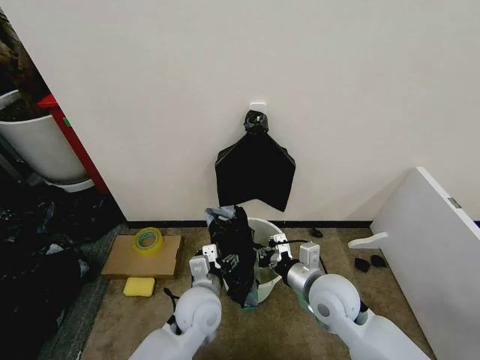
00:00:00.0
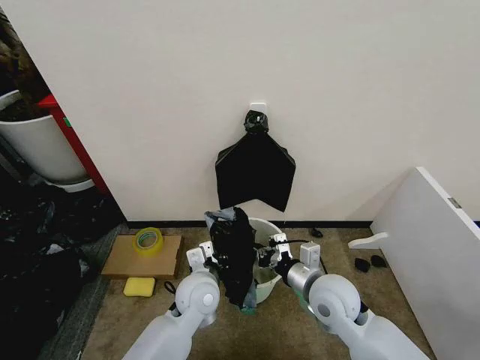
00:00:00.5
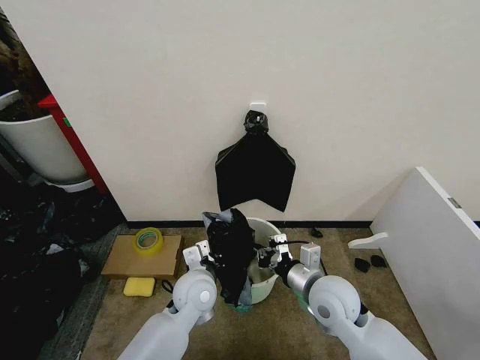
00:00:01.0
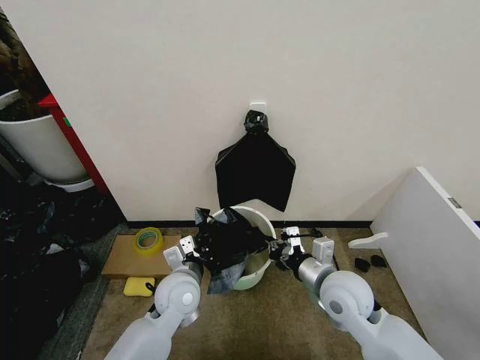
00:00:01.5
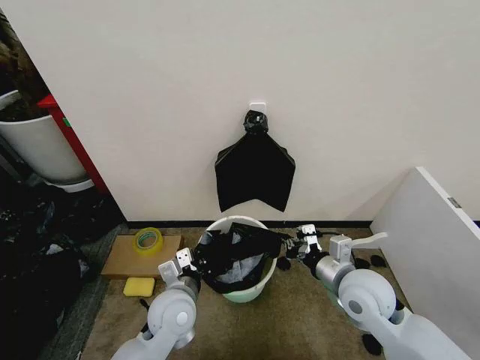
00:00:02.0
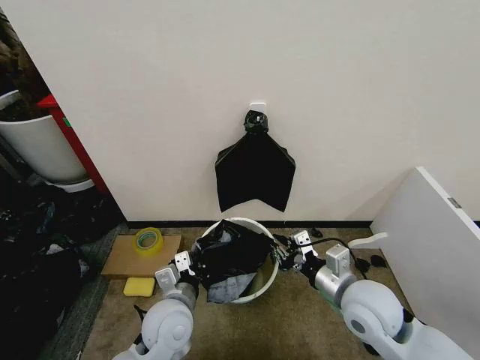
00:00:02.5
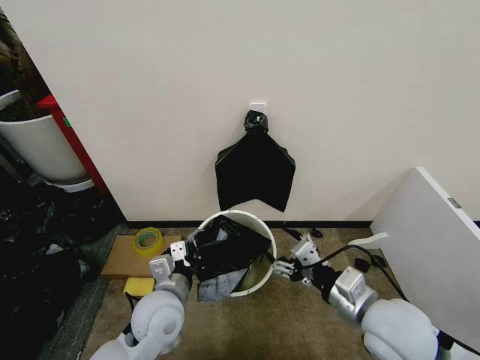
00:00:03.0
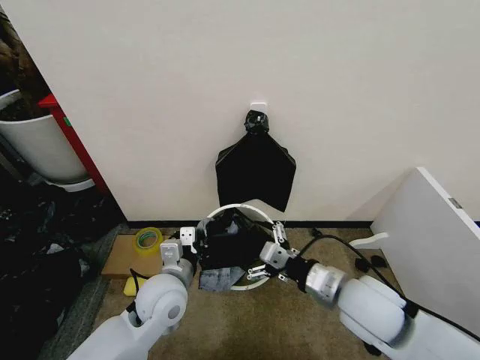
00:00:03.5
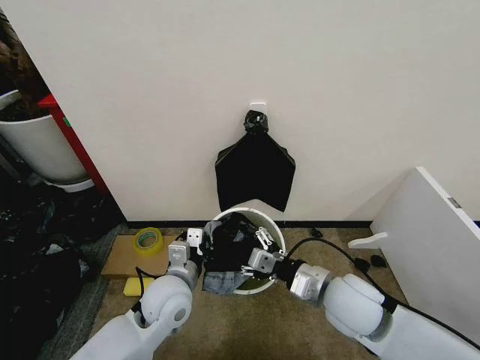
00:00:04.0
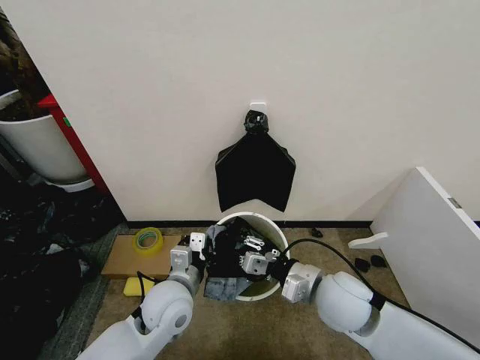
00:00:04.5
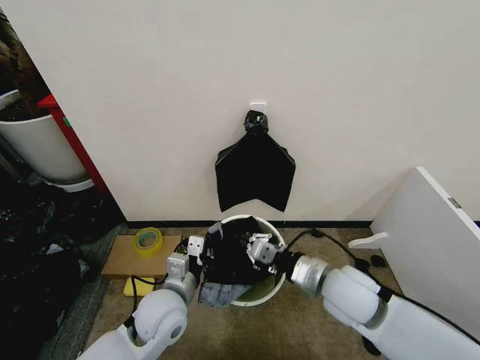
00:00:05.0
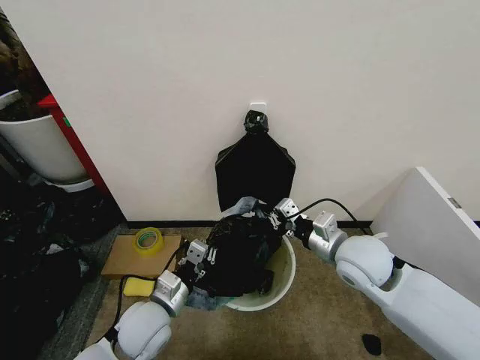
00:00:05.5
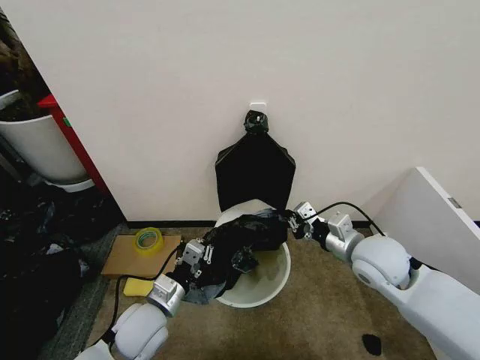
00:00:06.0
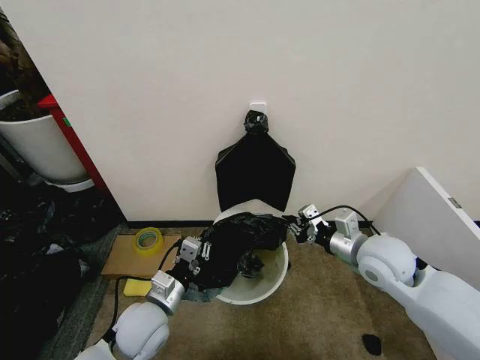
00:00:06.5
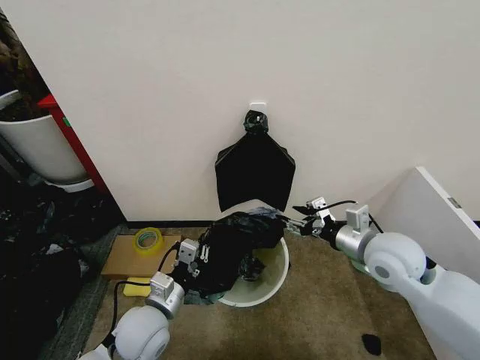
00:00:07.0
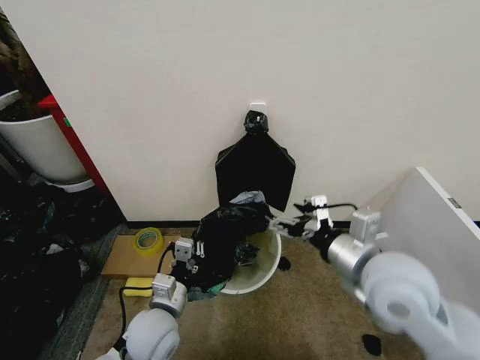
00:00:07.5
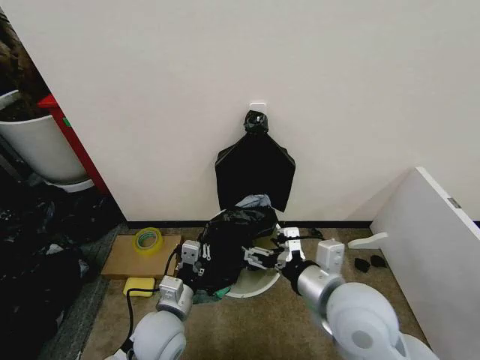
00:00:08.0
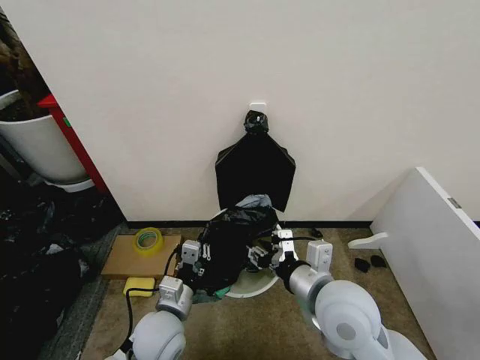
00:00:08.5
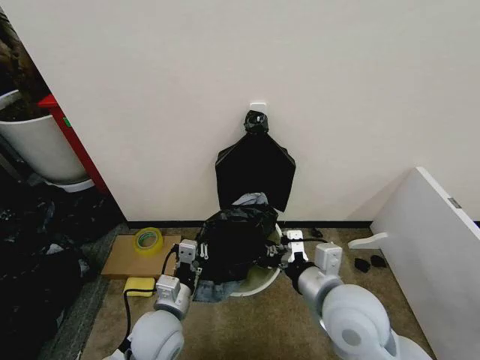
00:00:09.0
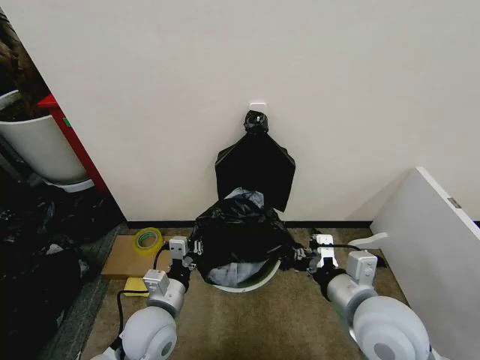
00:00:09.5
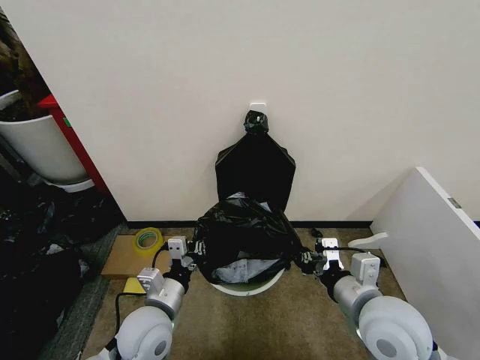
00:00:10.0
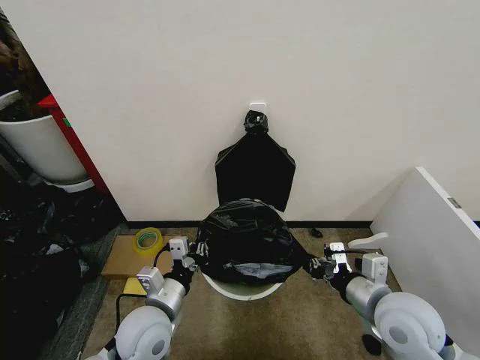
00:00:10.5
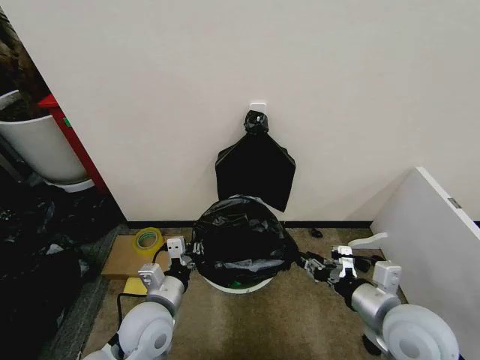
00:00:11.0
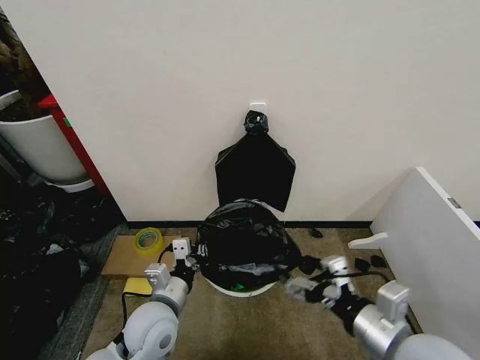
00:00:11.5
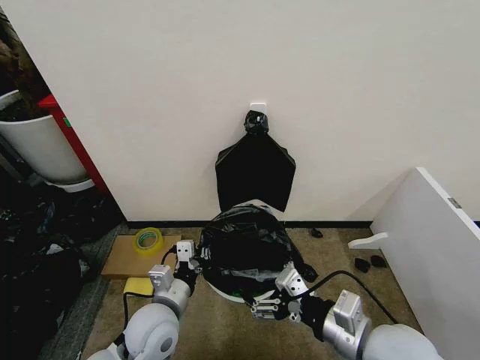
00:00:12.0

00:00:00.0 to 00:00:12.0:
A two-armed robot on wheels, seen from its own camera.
Task of the whole recording: Place the garbage bag over the trash bin.
00:00:00.0 to 00:00:02.0: The left gripper is displaced to the left by some 5 cm, and closes, while the right gripper shifts approximately 5 cm to the right.
00:00:02.0 to 00:00:04.0: The right gripper opens its fingers.
00:00:04.0 to 00:00:06.0: The left gripper moves to the left, roughly 5 cm. Meanwhile the right gripper shifts some 10 cm to the right and forward, and closes its fingers.
00:00:06.0 to 00:00:08.0: The right gripper moves backward and to the left, about 15 cm, and opens up.
00:00:08.0 to 00:00:10.0: The right gripper moves to the right, roughly 5 cm, and closes.
00:00:10.0 to 00:00:12.0: The right gripper opens.

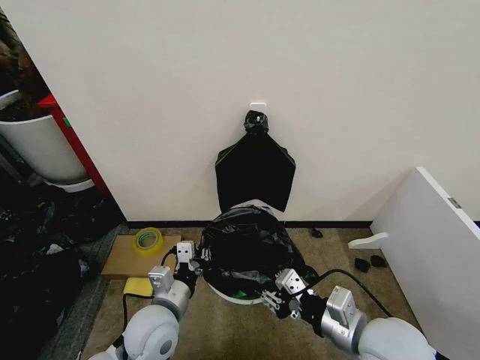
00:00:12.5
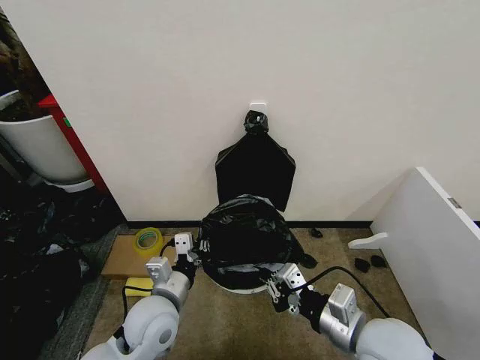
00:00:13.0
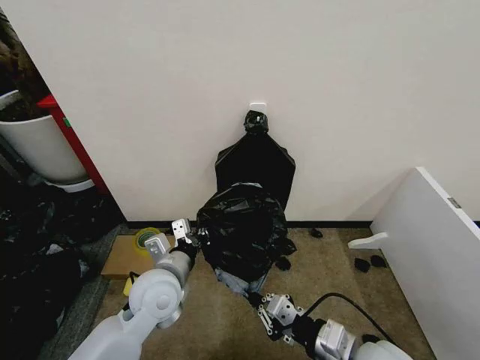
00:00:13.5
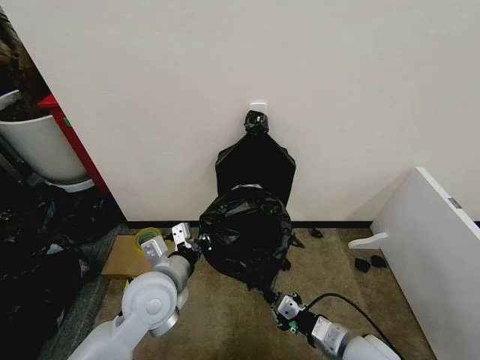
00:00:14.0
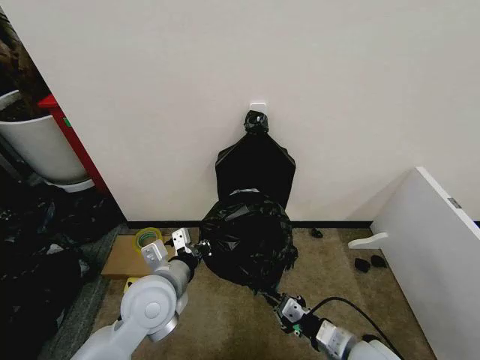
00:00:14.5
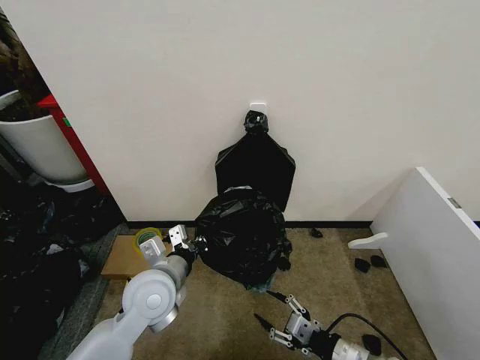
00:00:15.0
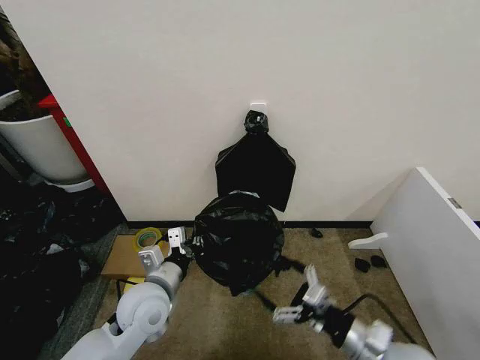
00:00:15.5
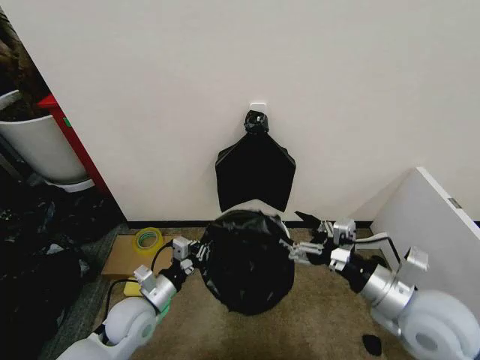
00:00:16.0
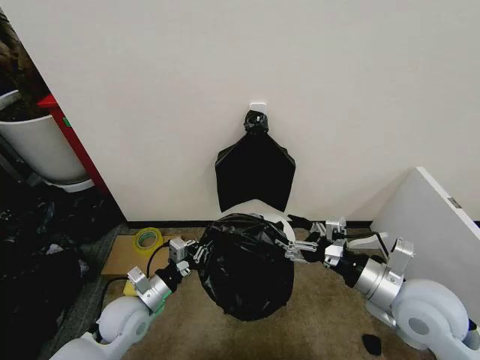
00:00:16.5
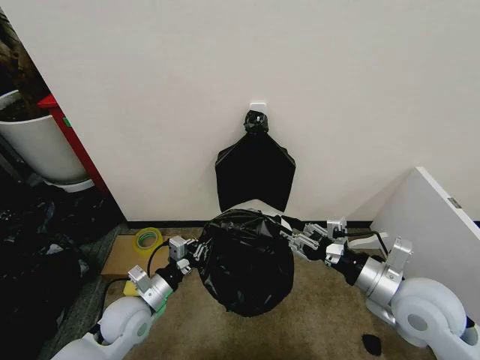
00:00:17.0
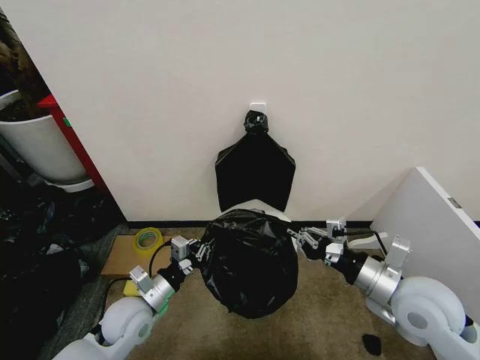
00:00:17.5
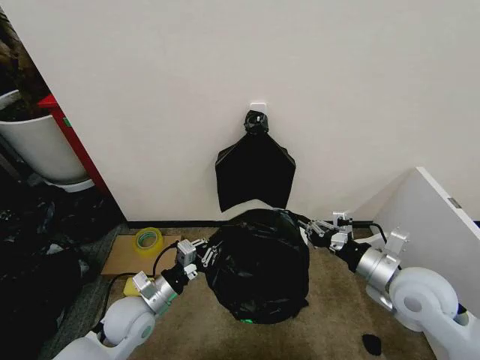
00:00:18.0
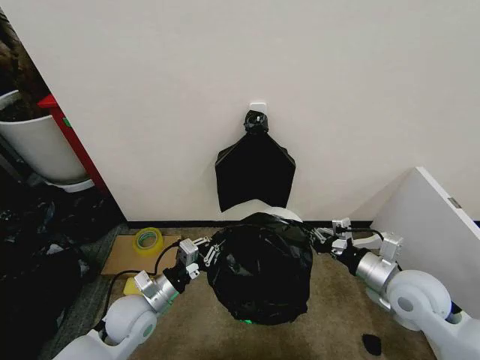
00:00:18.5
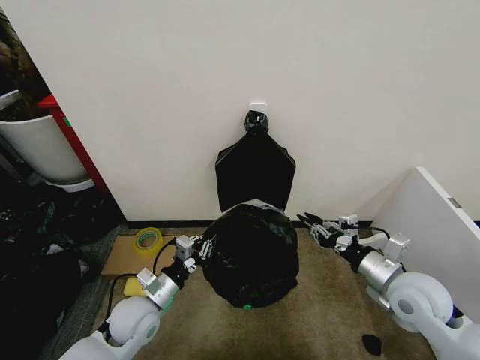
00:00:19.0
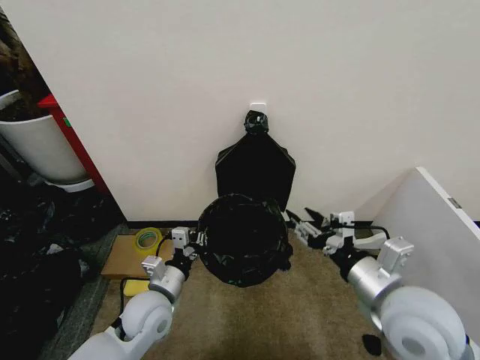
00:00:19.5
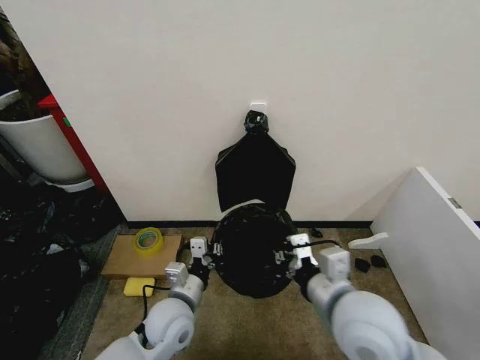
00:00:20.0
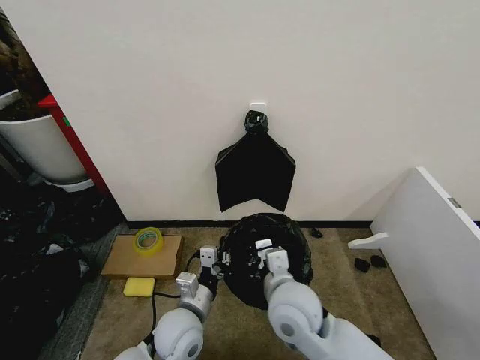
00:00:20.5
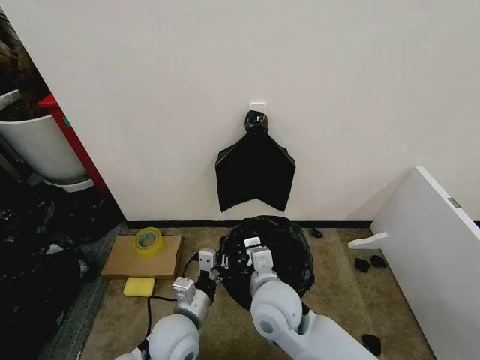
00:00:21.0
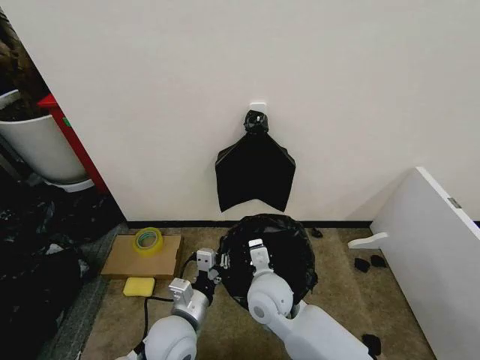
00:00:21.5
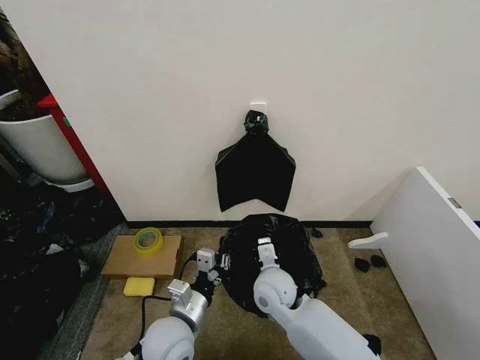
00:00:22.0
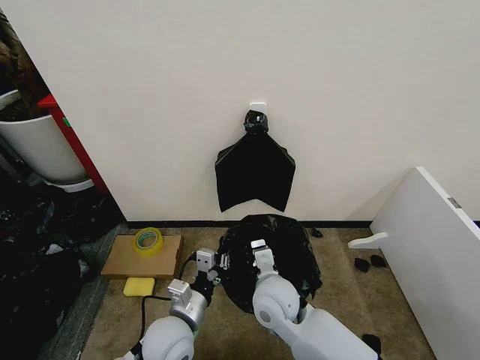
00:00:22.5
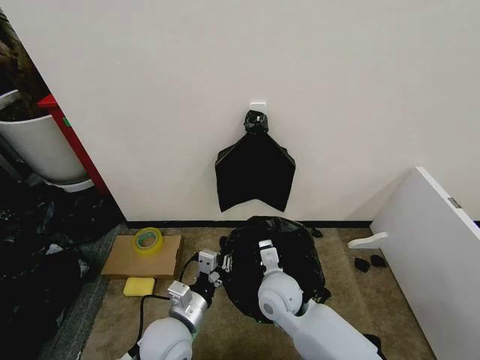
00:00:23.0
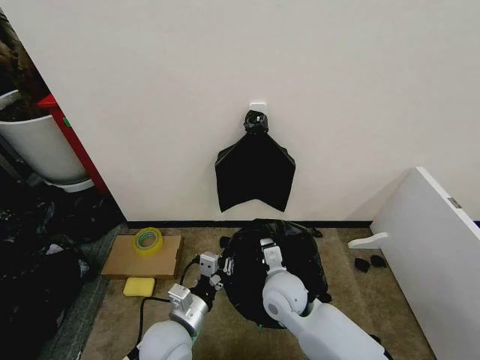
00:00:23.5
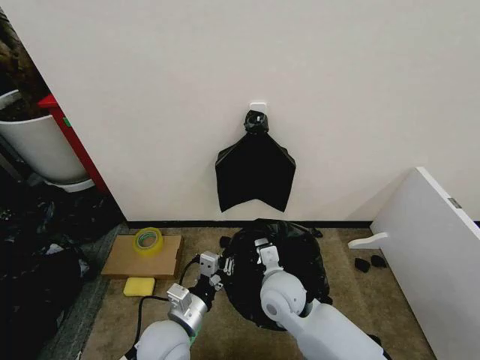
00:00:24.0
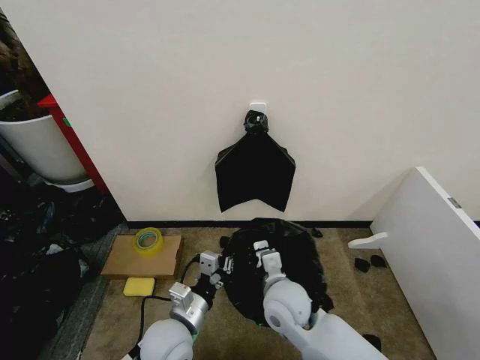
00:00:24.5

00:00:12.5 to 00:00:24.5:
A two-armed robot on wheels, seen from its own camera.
Task of the whole recording: Place the garbage bag over the trash bin.
00:00:12.5 to 00:00:14.5: The right gripper goes about 10 cm downward; the left gripper is displaced upward by some 5 cm.
00:00:14.5 to 00:00:16.5: The left gripper is displaced downward and to the left by about 15 cm, while the right gripper shifts some 15 cm upward and forward, and opens up.
00:00:16.5 to 00:00:18.5: The right gripper travels downward by about 5 cm, and closes its fingers.
00:00:18.5 to 00:00:20.5: The left gripper travels to the right by roughly 10 cm. The right gripper goes approximately 25 cm to the left, and opens, then closes again.
00:00:20.5 to 00:00:22.5: The right gripper is displaced downward by approximately 5 cm.
00:00:22.5 to 00:00:24.5: The grippers move only a little.

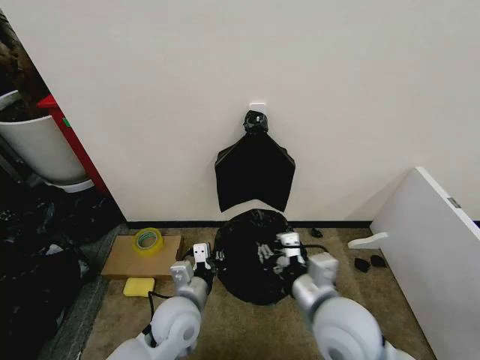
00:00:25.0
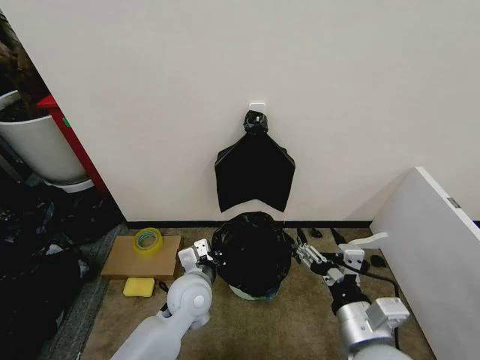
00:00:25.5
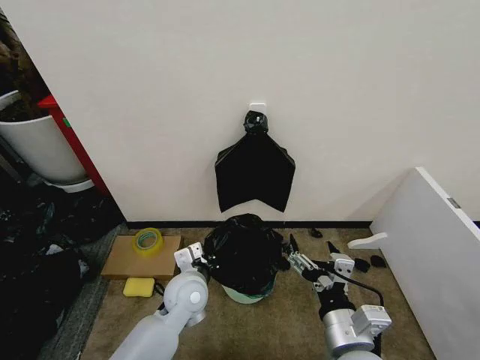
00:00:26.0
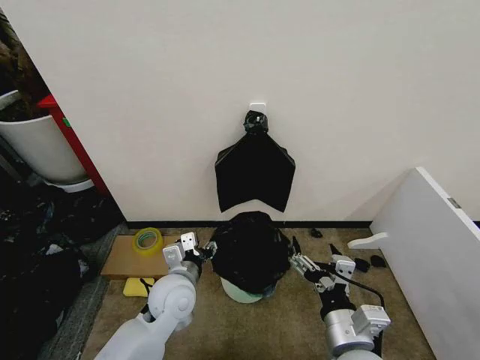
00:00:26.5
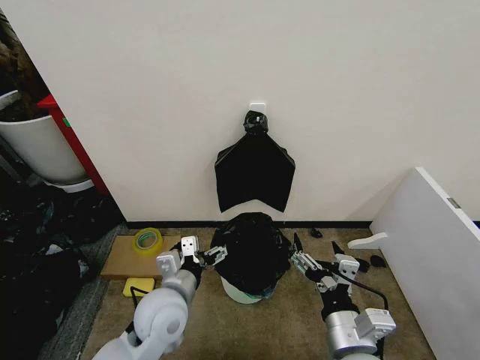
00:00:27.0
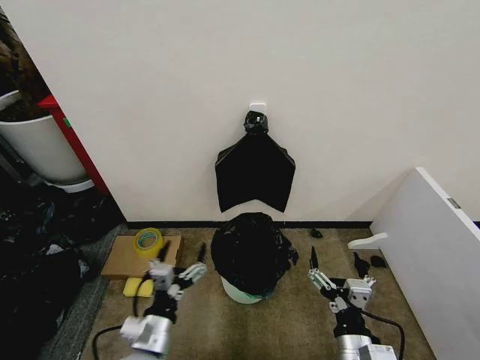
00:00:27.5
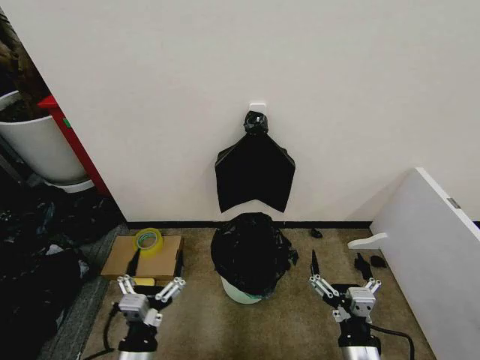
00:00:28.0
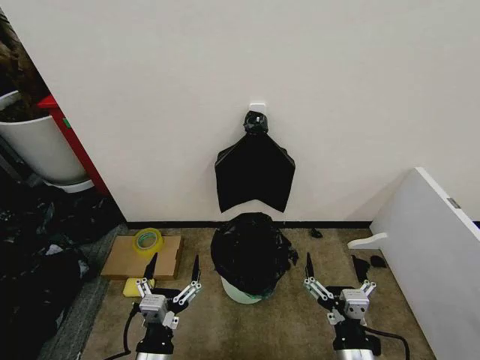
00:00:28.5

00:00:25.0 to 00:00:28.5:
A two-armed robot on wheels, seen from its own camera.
Task of the whole recording: Place the garbage bag over the trash bin.
00:00:25.0 to 00:00:27.0: The right gripper heads backward, covering some 5 cm, and opens its fingers, while the left gripper moves approximately 5 cm, and opens.
00:00:27.0 to 00:00:28.5: The right gripper moves downward, some 5 cm. Meanwhile the left gripper travels backward and downward by approximately 15 cm.
